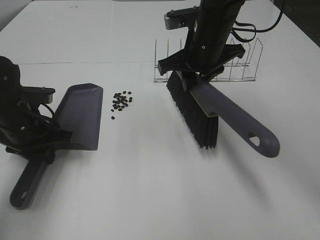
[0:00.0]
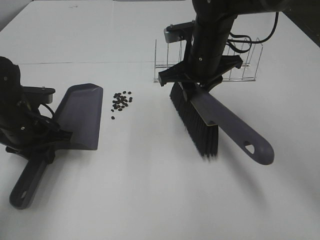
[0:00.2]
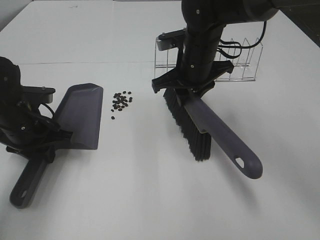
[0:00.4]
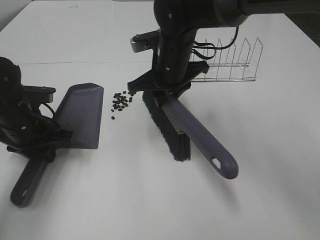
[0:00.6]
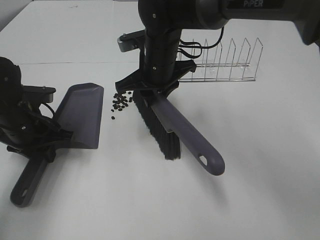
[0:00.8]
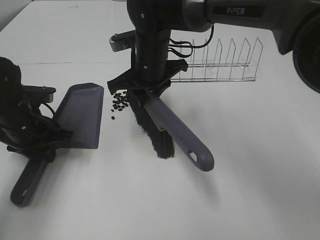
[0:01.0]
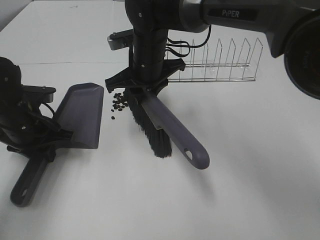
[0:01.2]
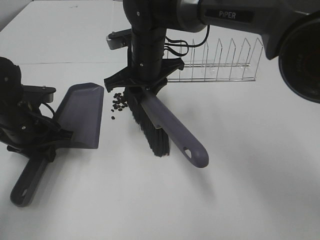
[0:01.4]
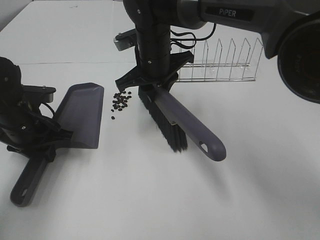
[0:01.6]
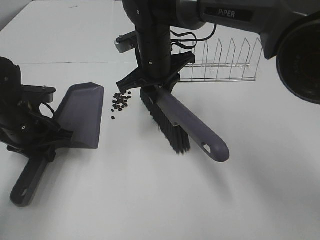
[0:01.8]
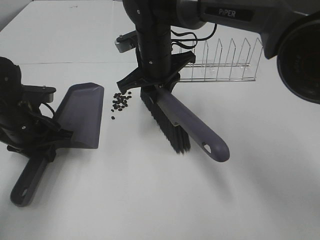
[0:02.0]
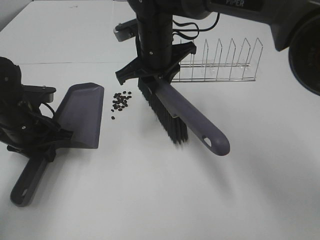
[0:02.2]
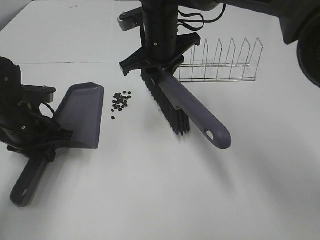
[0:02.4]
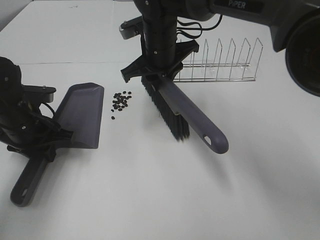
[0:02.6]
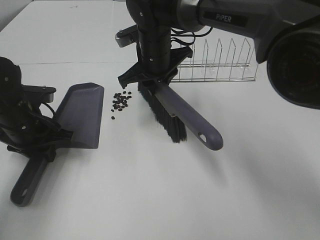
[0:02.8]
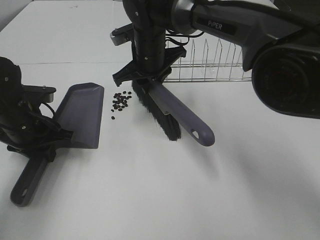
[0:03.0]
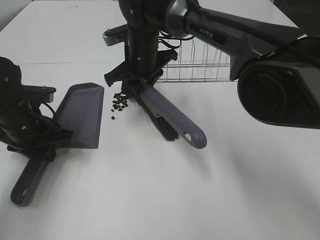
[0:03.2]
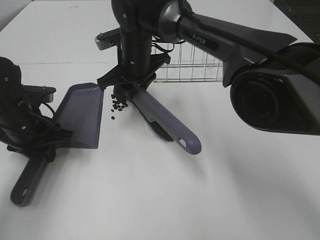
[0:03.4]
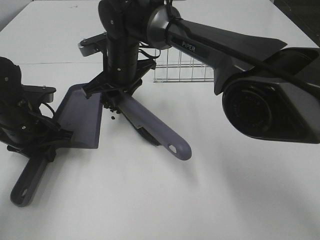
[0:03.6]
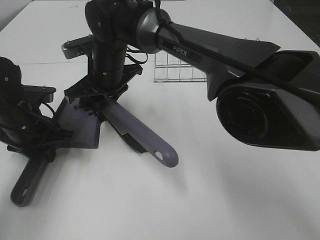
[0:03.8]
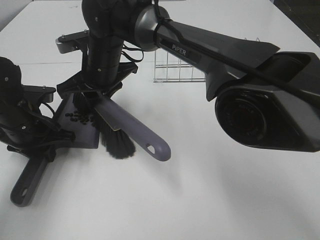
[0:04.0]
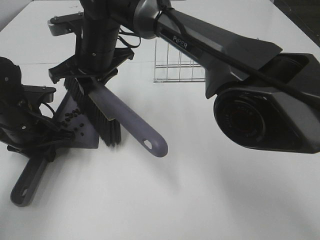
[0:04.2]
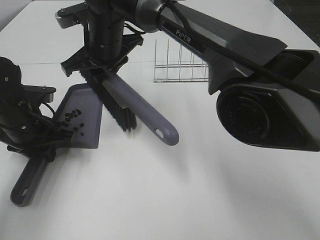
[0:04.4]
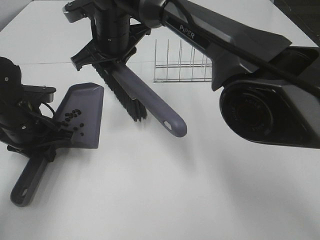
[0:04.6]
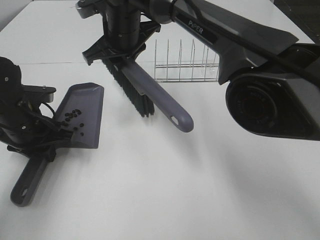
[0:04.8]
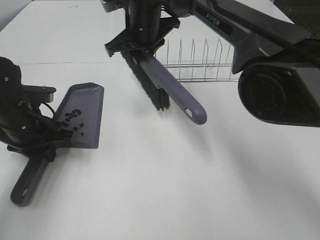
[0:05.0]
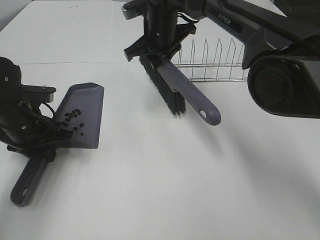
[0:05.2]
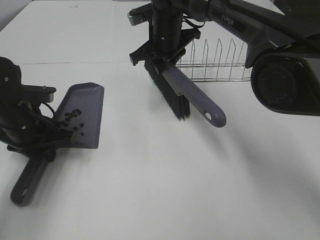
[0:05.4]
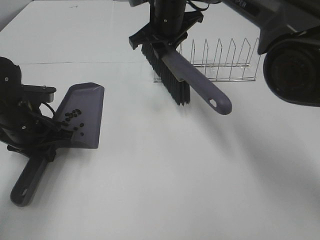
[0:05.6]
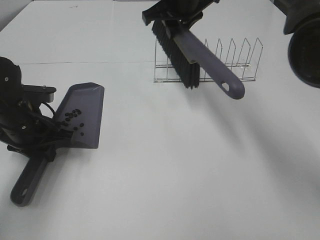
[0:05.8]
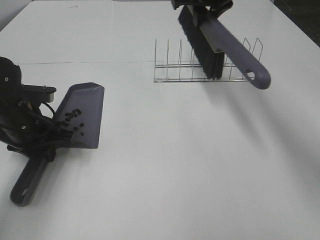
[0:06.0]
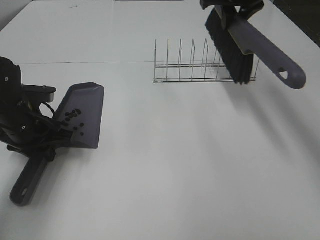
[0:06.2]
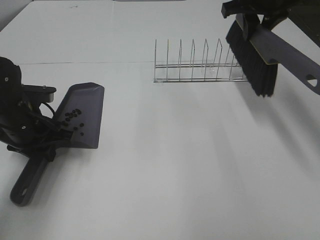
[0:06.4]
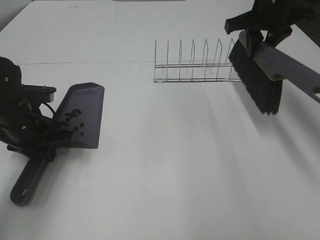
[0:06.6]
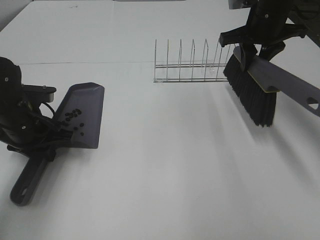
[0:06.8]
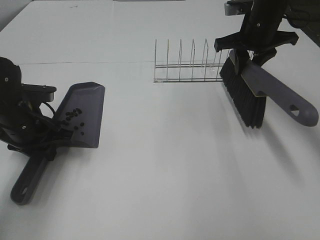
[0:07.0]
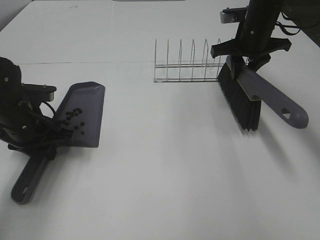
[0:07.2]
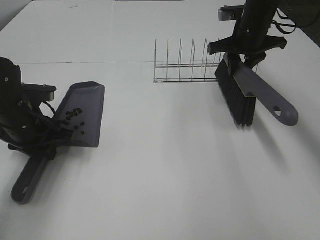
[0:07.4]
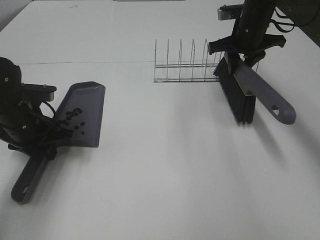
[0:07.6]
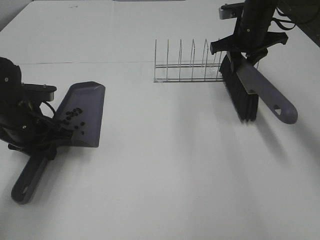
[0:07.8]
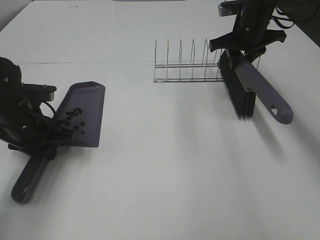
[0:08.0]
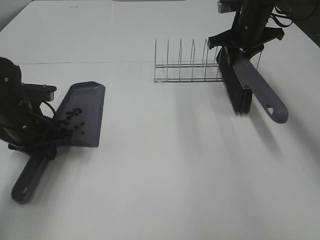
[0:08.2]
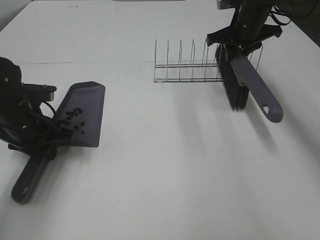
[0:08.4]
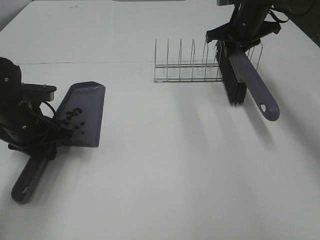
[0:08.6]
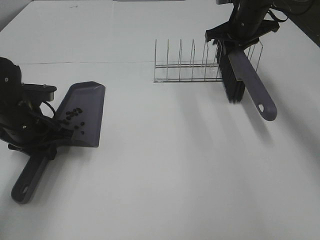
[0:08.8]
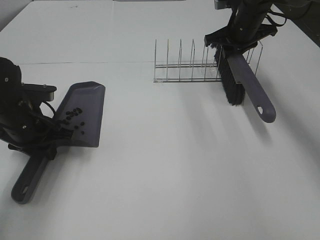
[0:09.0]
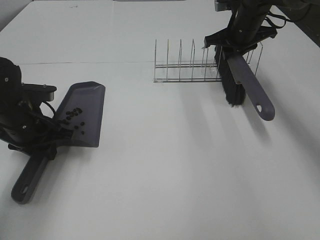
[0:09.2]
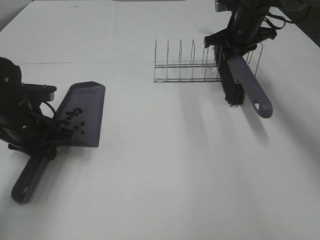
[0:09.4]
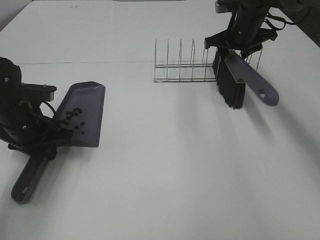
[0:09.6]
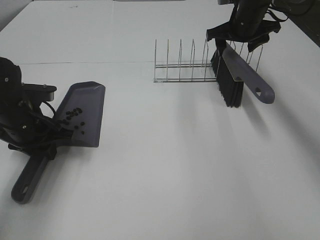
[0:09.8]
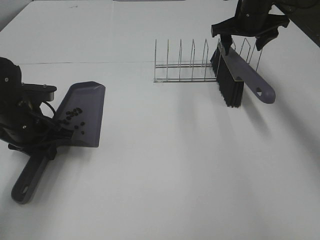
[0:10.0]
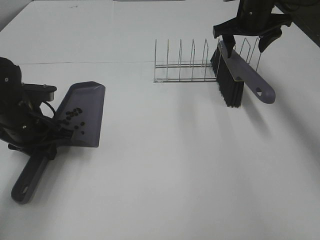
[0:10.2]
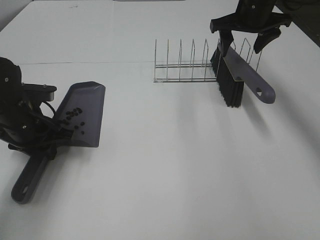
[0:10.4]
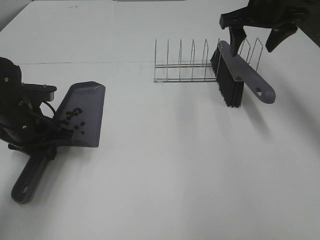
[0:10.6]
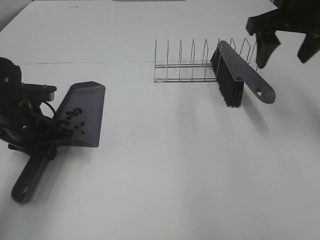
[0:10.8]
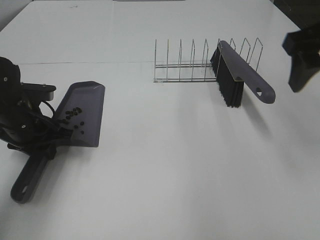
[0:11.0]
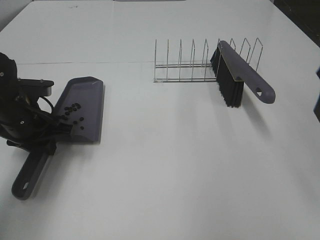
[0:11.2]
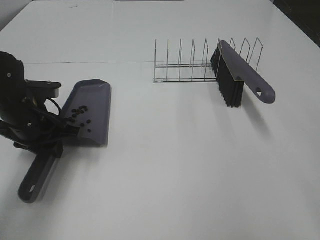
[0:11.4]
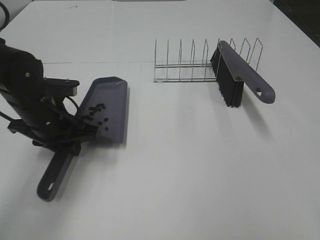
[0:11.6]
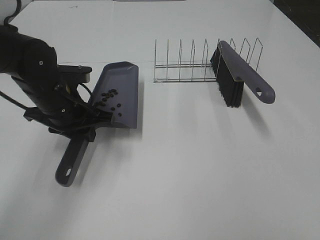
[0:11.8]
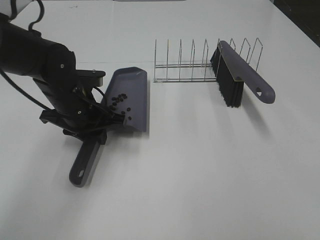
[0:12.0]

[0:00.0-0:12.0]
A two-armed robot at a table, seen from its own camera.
Task of the whole recording: Sweep Coffee Bean.
Step, 0.0 to 4.4 s: Right hand:sweep the coffee beans into the dustpan.
Step, 4.6 to 9.4 s: Right hand:place the broom on the rack.
0.0 to 1.6 s: The right gripper heads to the left, covering approximately 10 cm.
1.6 to 3.0 s: The grippers stay close to where they were, moving slightly.
3.0 to 4.4 s: The right gripper moves to the left, approximately 5 cm.
4.4 to 6.0 s: The right gripper travels to the right by approximately 20 cm.
6.0 to 7.6 s: The right gripper travels downward and to the right by roughly 10 cm.
7.6 to 9.0 s: There are only small adjustments of the grippers.
9.0 to 10.4 s: The right gripper shifts approximately 5 cm upward, and opens.
10.4 to 12.0 s: The right gripper heads backward, covering some 40 cm. The left gripper shifts roughly 10 cm to the right.

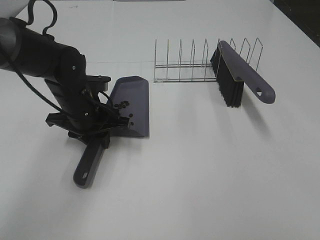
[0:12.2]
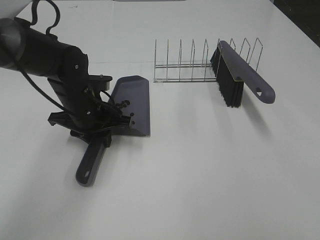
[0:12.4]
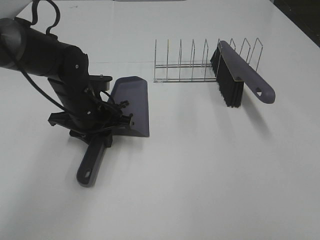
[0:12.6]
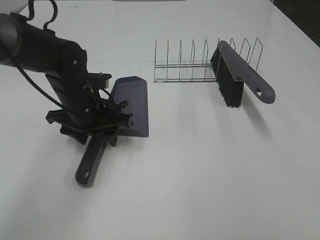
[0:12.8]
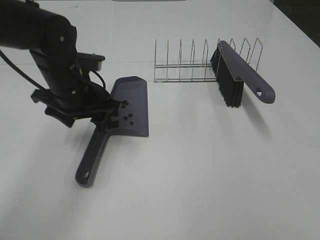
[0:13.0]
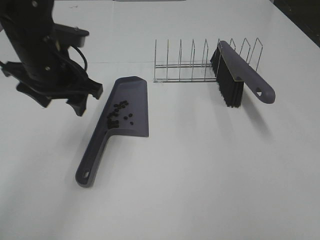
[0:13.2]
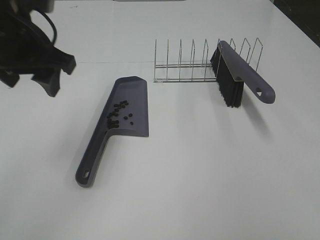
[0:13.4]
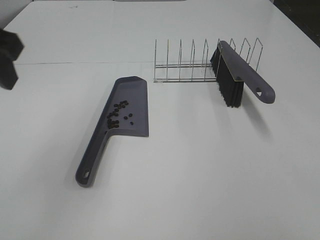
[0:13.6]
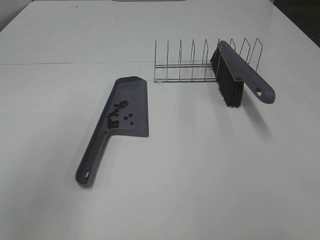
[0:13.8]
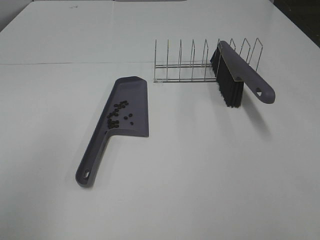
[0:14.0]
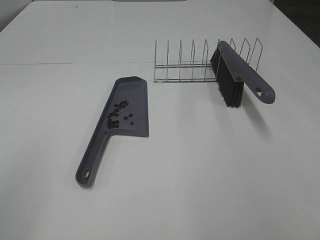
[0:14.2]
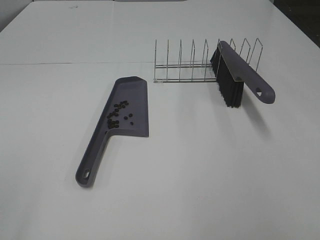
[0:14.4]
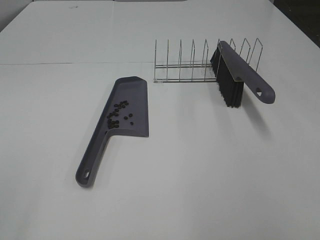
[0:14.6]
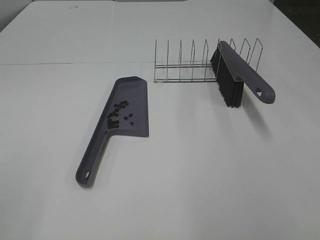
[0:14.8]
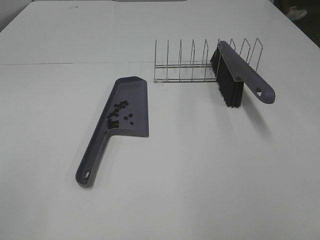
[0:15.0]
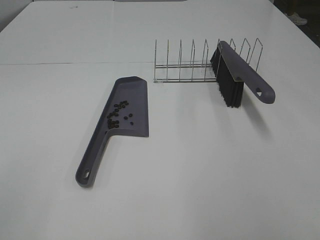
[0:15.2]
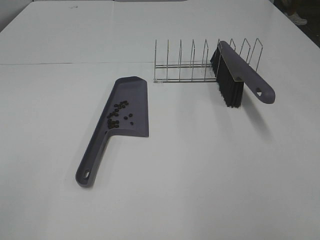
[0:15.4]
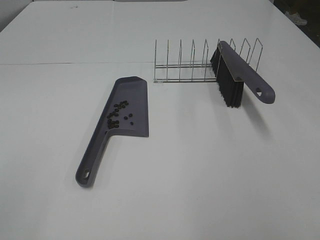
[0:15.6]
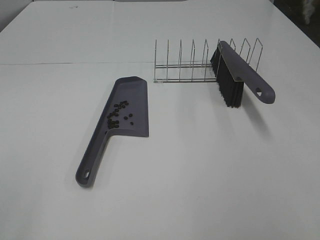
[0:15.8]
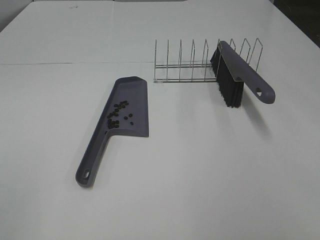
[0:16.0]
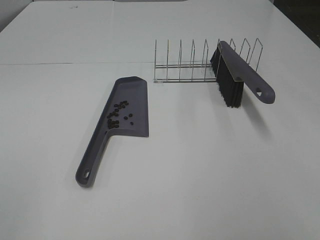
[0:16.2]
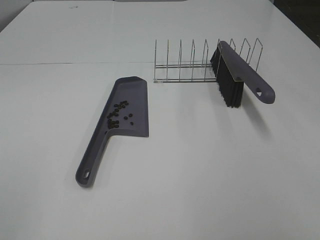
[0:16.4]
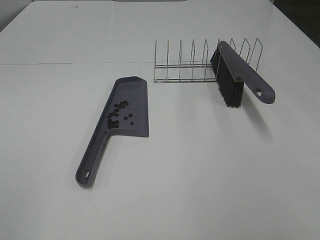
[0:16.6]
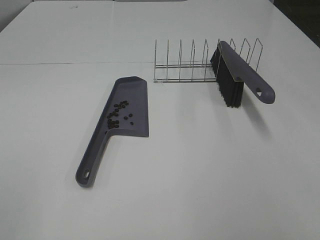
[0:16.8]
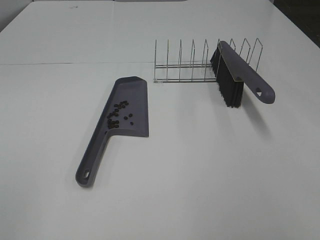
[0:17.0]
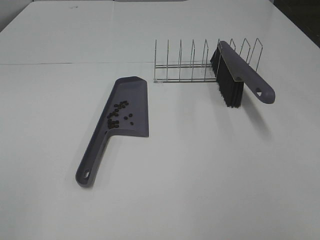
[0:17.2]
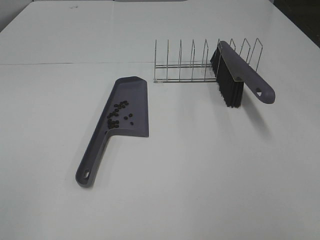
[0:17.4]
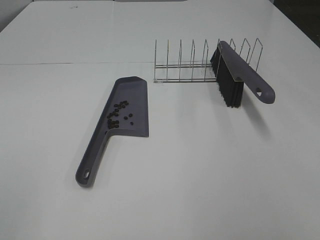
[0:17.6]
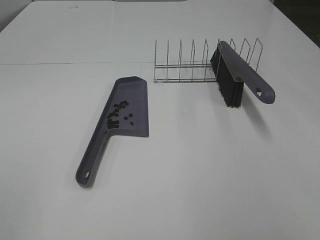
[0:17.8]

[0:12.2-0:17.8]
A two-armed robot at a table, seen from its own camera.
Task of the whole recording: Sweep Coffee Bean.
12.2 to 13.6 s: The left gripper travels upward and backward by about 25 cm, and opens its fingers.
13.6 to 15.0 s: The left gripper travels backward and to the left by roughly 25 cm.
16.4 to 17.8 s: Both grippers stay put.

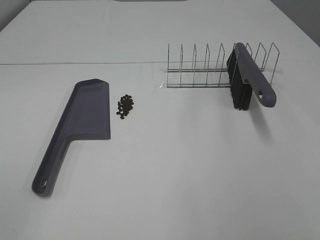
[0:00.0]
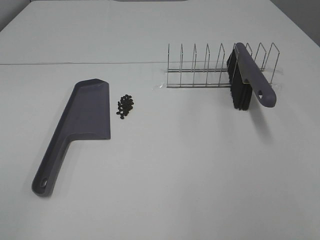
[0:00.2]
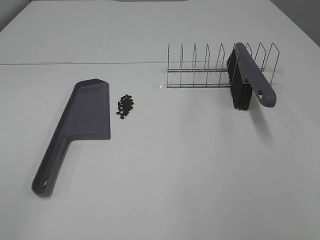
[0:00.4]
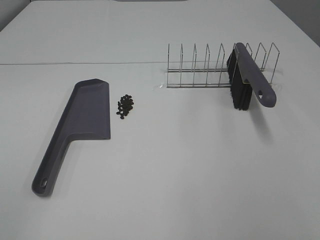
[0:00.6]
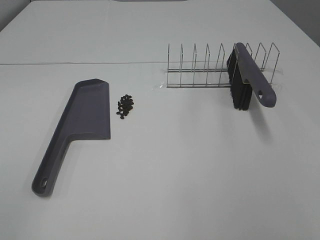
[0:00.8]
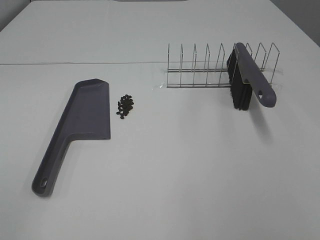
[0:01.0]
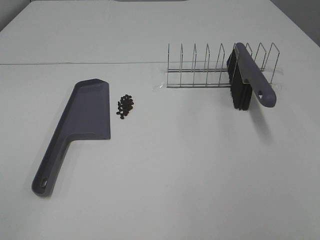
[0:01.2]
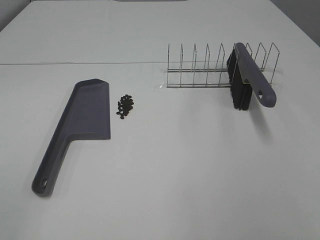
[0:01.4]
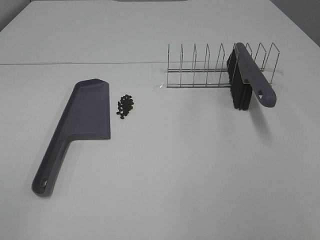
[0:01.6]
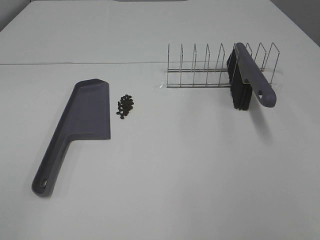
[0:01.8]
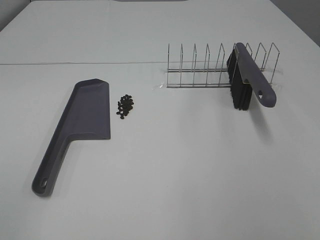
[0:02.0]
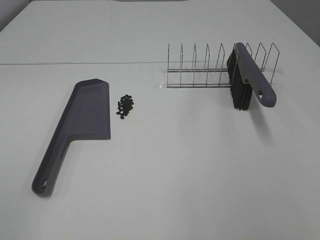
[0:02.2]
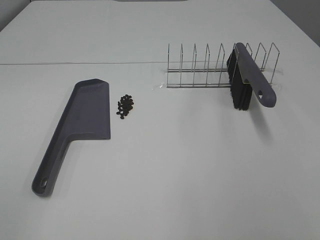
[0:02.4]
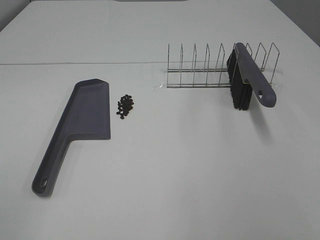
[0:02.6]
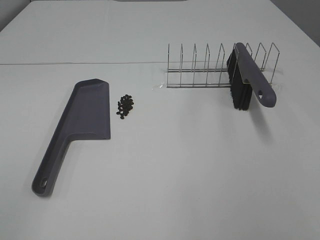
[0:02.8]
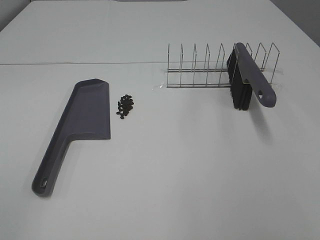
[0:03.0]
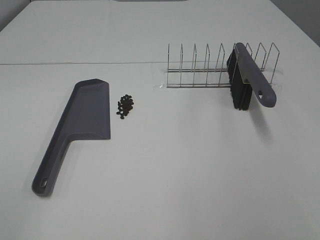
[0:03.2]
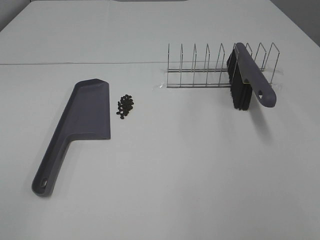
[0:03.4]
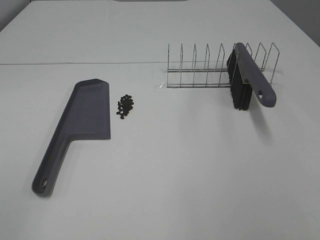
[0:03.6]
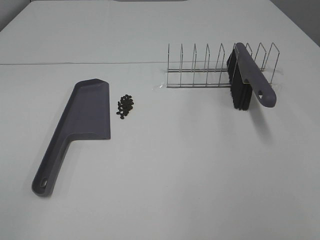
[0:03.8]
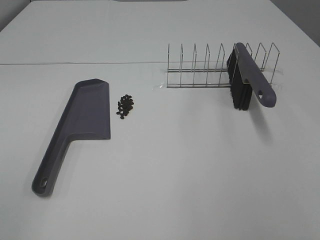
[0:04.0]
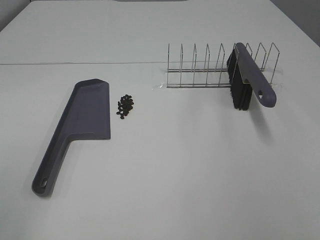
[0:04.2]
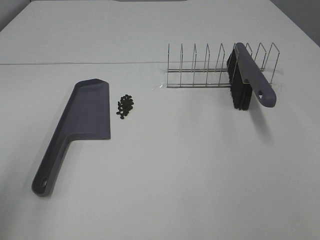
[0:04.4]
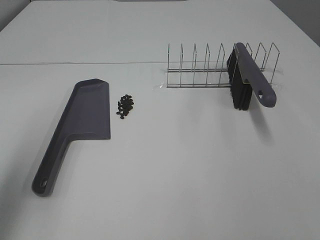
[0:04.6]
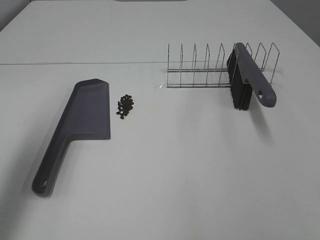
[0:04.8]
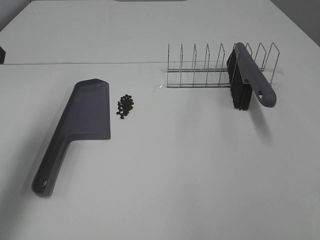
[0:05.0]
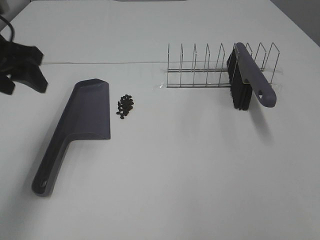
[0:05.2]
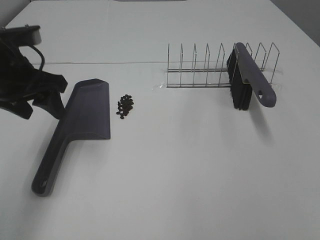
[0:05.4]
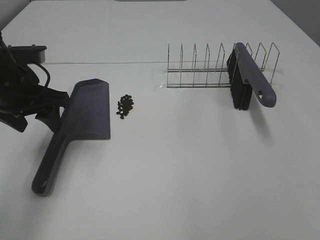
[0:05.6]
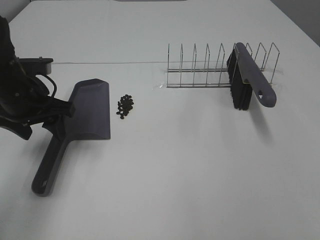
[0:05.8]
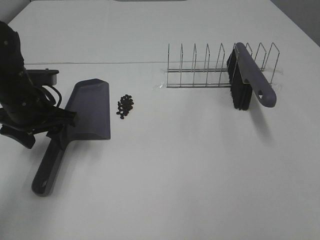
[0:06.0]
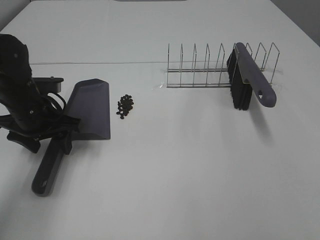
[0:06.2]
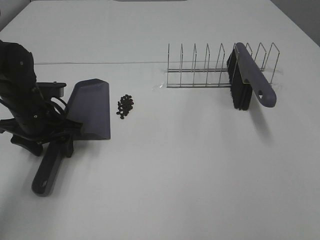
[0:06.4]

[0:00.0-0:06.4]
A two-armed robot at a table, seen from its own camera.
Task of the whole recording: Sweep Coffee Bean.
0.0 to 3.2 s: Neither gripper changes place.
3.2 to 4.8 s: The left gripper travels forward by roughly 25 cm.
4.8 to 6.4 s: The left gripper goes about 25 cm downward and forward.
